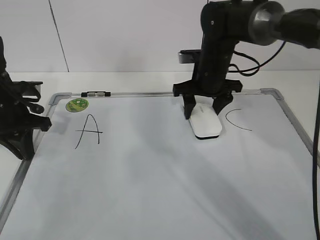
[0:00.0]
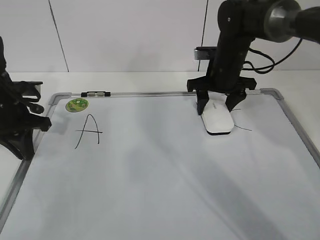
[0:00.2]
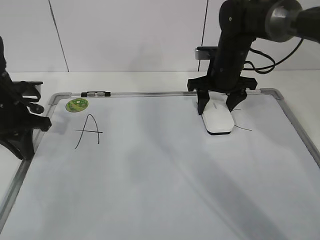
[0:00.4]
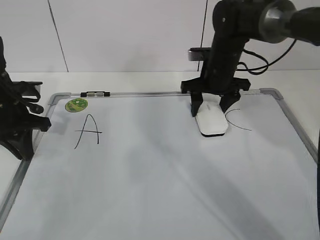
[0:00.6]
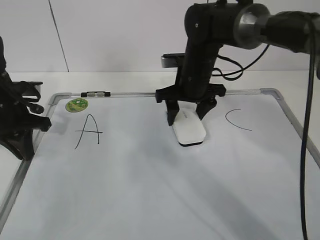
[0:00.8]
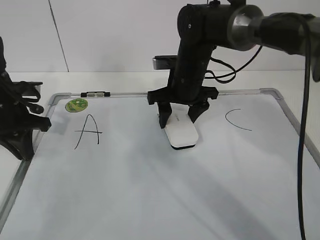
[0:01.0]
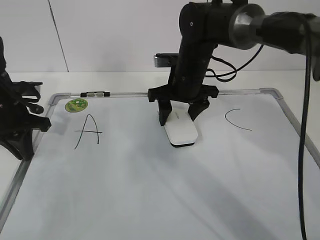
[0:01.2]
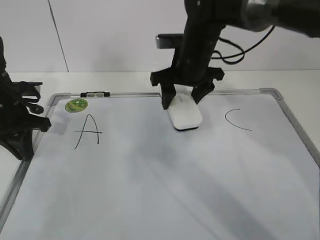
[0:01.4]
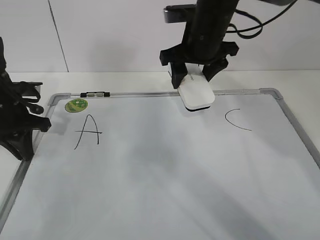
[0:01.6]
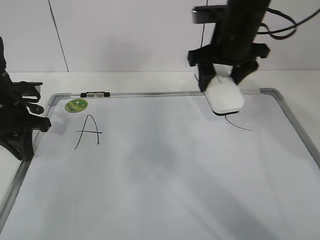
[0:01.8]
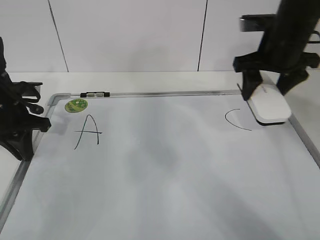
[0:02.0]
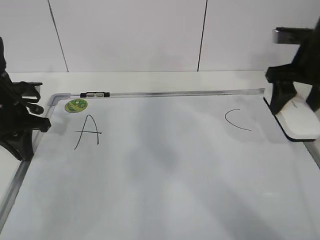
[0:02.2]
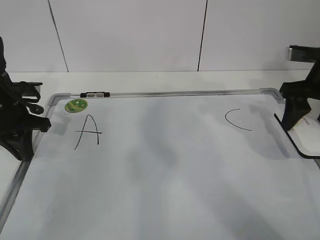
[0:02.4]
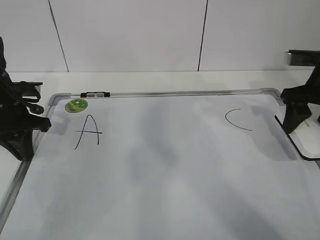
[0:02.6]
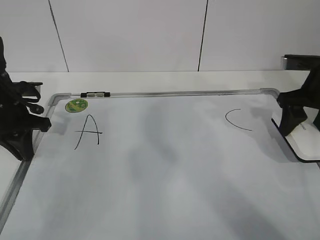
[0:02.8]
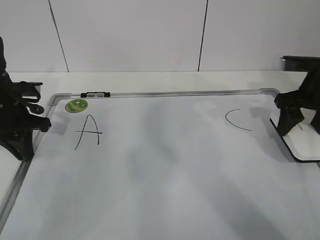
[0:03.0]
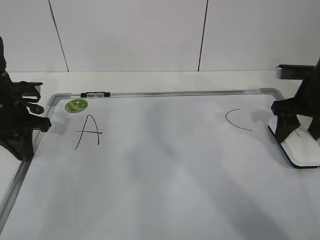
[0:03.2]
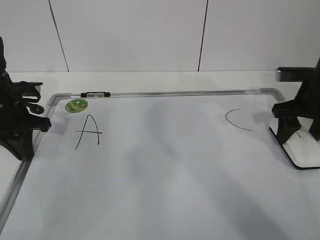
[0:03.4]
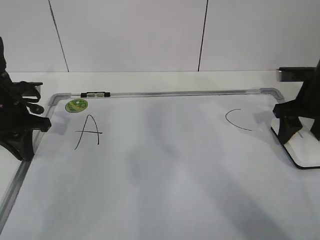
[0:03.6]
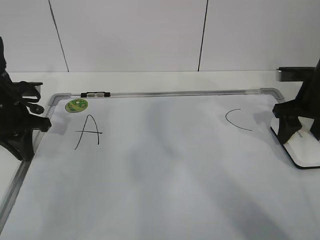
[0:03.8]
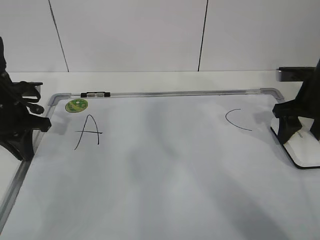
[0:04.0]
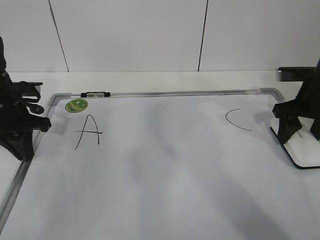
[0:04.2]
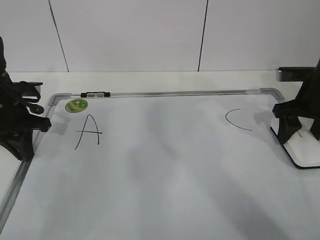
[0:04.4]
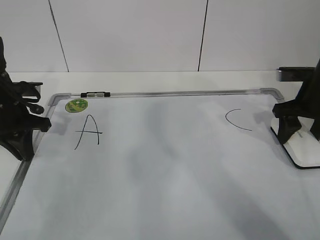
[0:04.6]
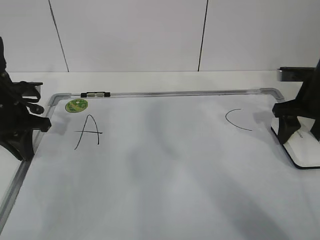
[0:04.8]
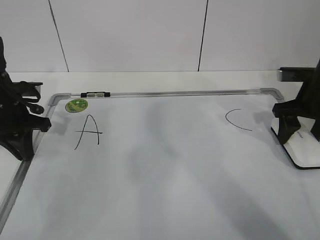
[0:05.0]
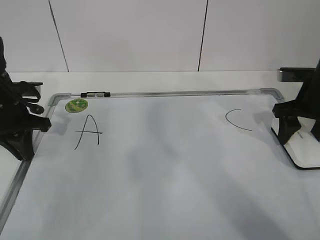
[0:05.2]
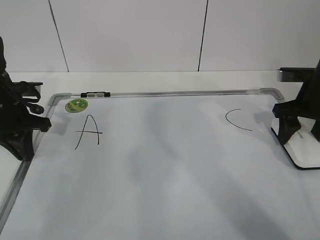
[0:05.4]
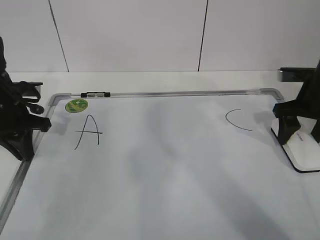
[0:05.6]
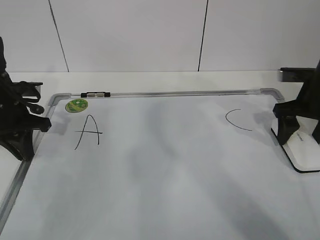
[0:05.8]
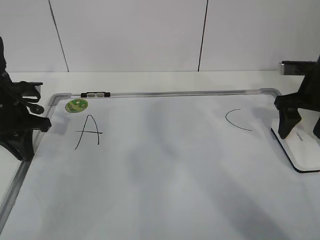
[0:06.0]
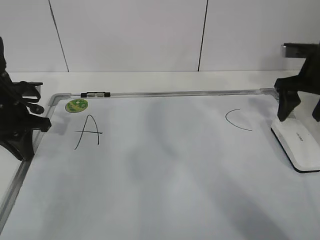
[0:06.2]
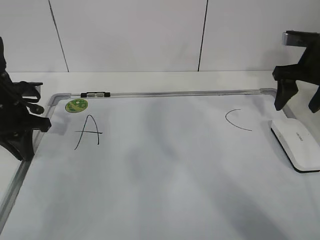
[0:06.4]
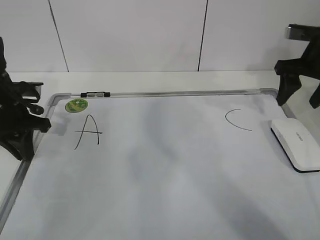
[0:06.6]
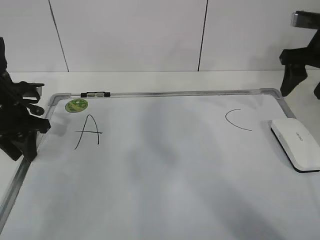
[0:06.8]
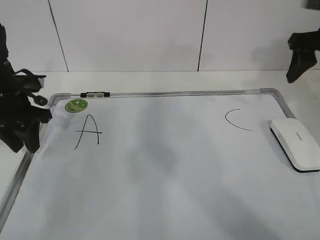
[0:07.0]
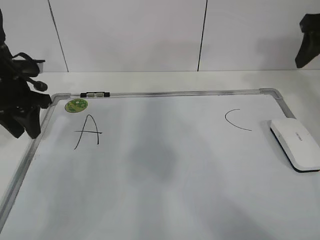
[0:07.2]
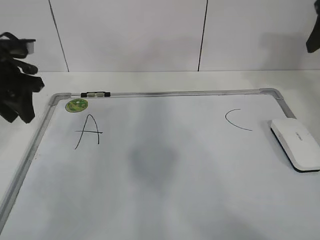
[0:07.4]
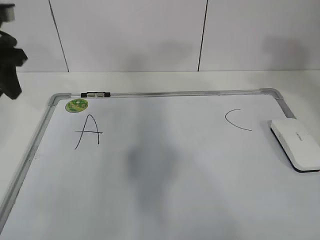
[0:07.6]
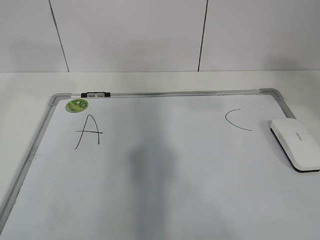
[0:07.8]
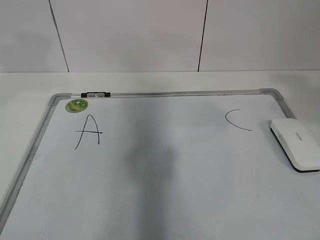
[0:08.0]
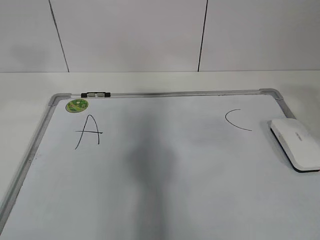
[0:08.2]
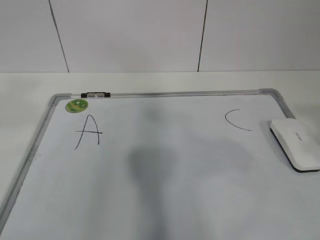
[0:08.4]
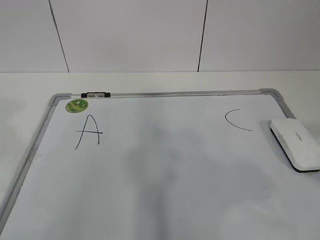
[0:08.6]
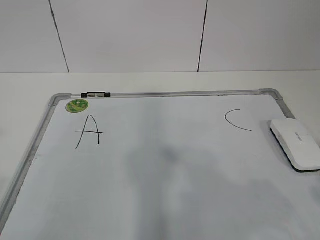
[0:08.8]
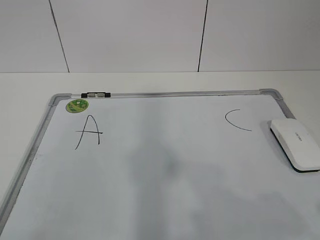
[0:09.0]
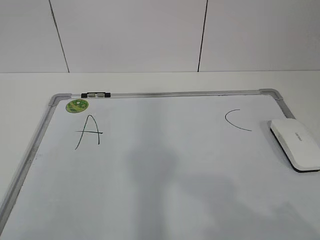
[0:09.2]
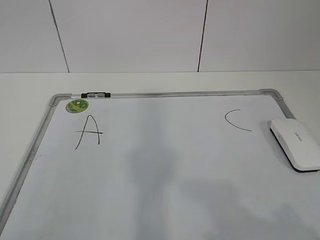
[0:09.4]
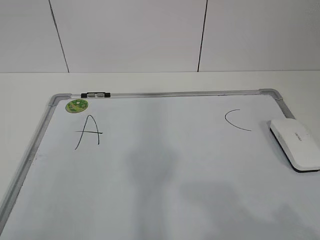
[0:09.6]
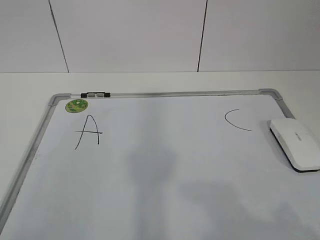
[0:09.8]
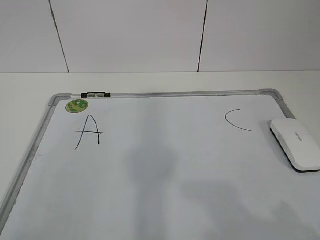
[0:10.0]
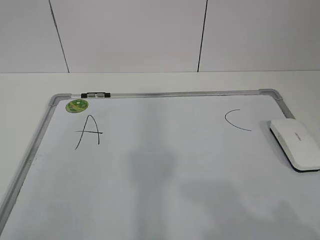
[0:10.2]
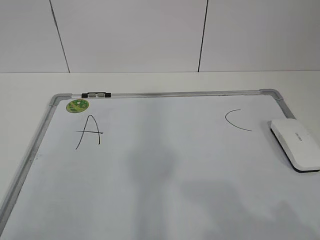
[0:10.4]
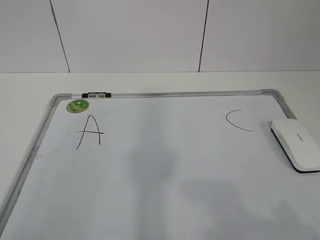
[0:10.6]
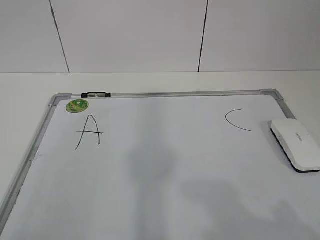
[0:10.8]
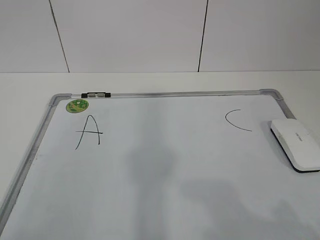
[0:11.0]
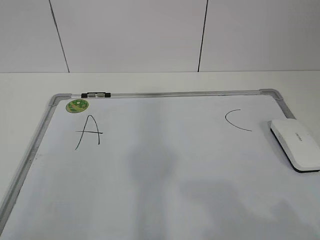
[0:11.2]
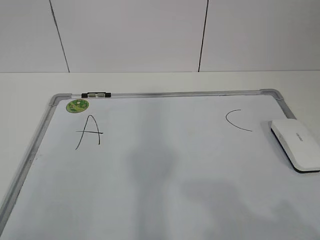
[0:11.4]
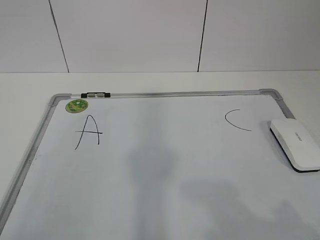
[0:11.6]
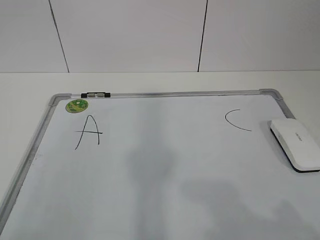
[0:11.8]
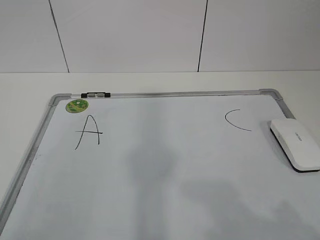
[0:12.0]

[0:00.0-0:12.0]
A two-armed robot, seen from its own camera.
Task of the whole recording: pick up the eraser on the blackboard and erase the letter "B".
0:00.0 to 0:01.6: The right gripper goes some 10 cm upward.
0:01.6 to 0:03.0: The right gripper moves to the right, approximately 20 cm.
0:03.0 to 0:04.4: The grippers make only small movements.
0:04.4 to 0:06.0: The right gripper opens up.
0:06.0 to 0:07.6: The left gripper travels upward by some 15 cm, and opens up, while the right gripper travels upward and backward by roughly 20 cm, and closes.
0:07.6 to 0:09.0: Both grippers move backward, roughly 30 cm.
0:10.4 to 0:12.0: Both grippers stay put.

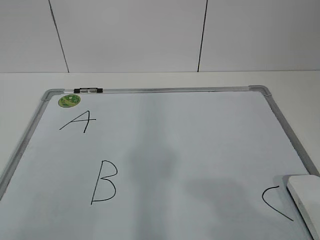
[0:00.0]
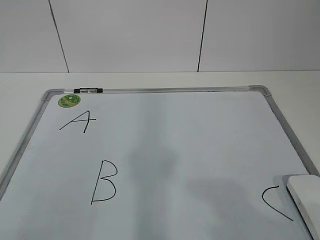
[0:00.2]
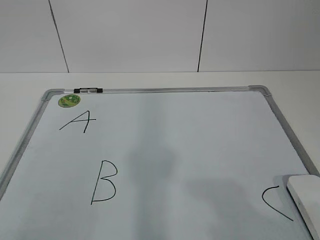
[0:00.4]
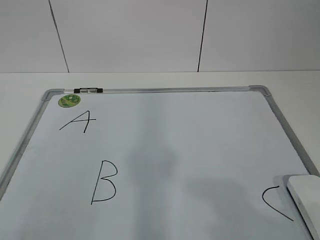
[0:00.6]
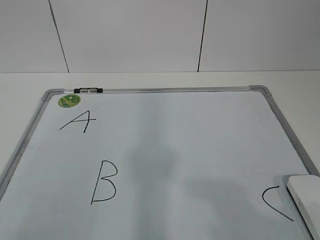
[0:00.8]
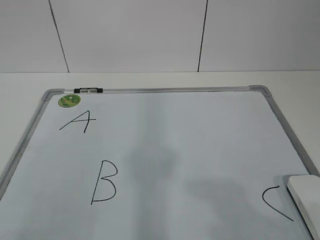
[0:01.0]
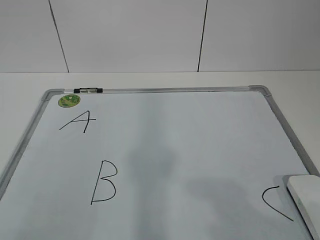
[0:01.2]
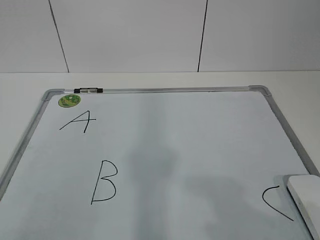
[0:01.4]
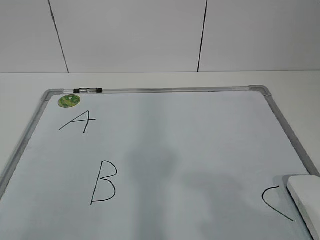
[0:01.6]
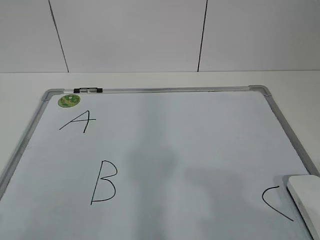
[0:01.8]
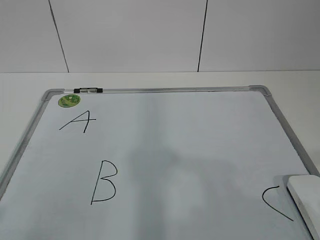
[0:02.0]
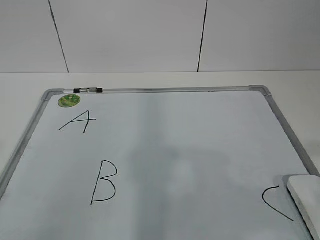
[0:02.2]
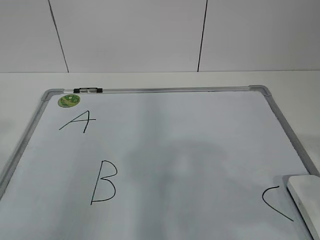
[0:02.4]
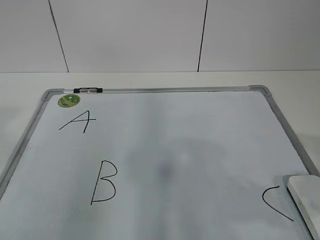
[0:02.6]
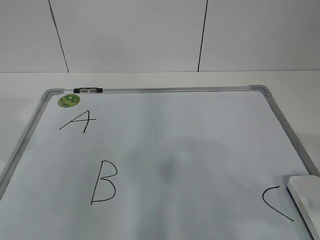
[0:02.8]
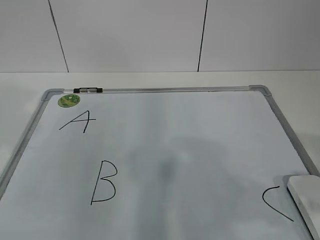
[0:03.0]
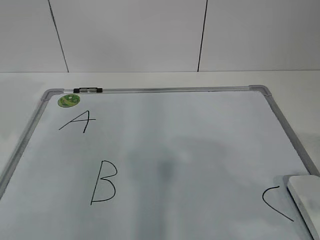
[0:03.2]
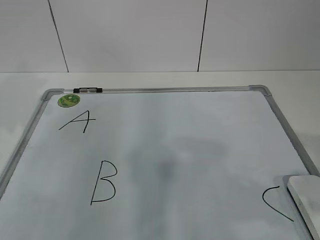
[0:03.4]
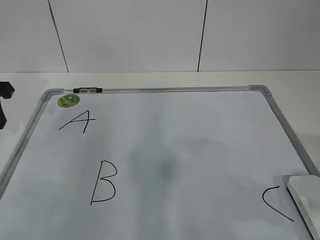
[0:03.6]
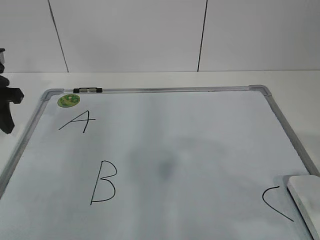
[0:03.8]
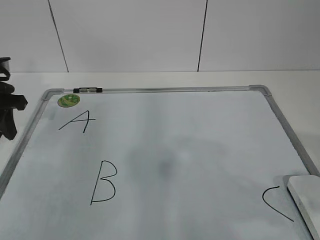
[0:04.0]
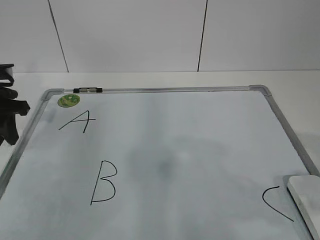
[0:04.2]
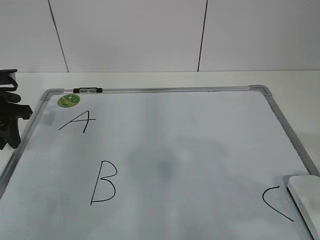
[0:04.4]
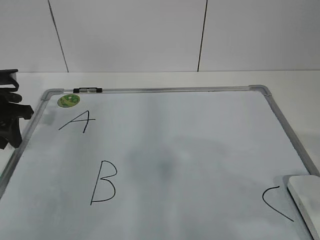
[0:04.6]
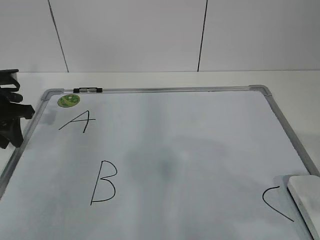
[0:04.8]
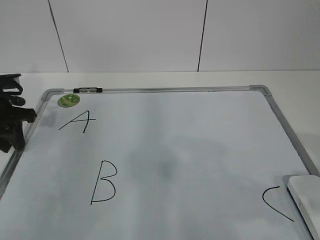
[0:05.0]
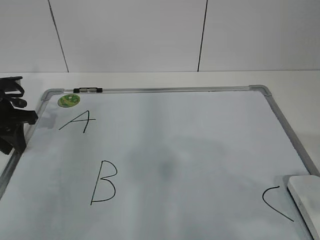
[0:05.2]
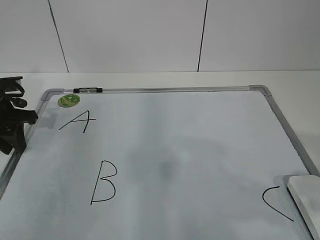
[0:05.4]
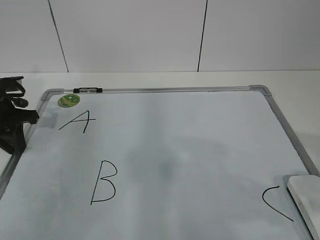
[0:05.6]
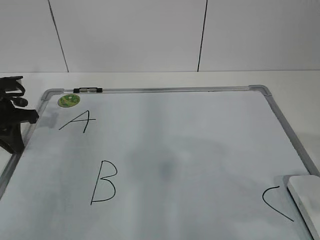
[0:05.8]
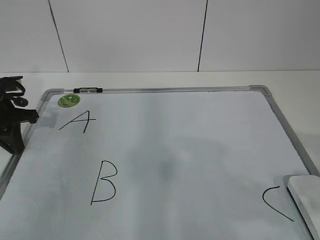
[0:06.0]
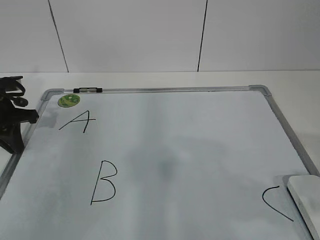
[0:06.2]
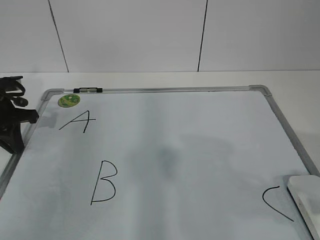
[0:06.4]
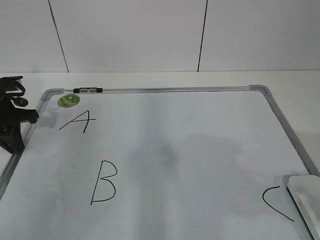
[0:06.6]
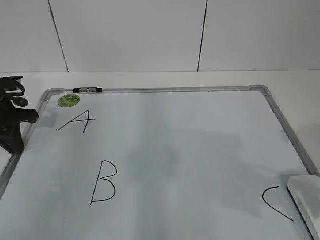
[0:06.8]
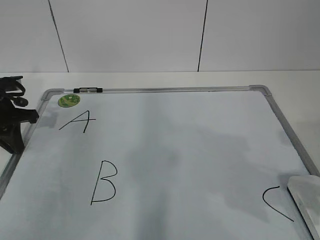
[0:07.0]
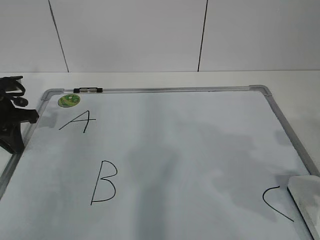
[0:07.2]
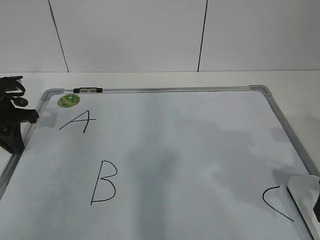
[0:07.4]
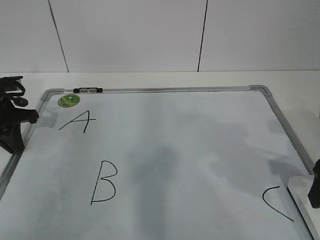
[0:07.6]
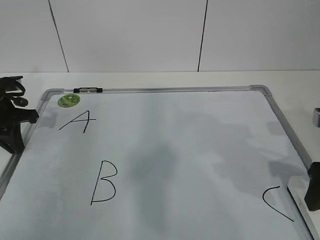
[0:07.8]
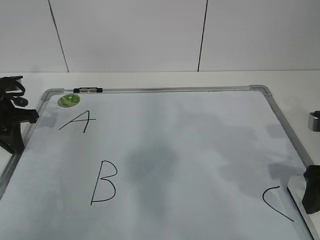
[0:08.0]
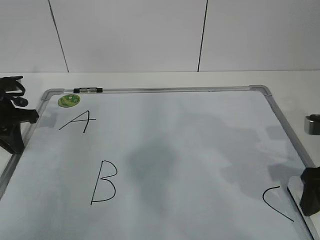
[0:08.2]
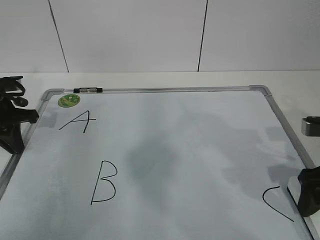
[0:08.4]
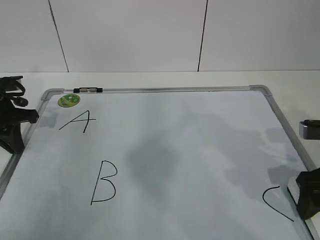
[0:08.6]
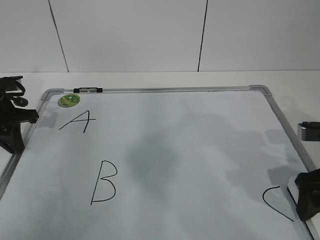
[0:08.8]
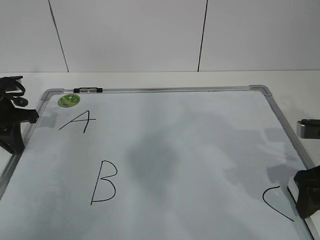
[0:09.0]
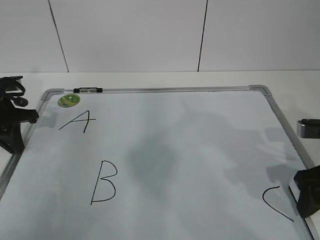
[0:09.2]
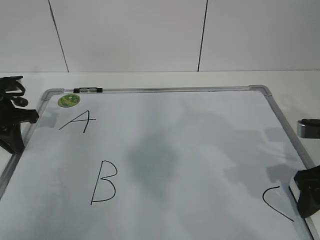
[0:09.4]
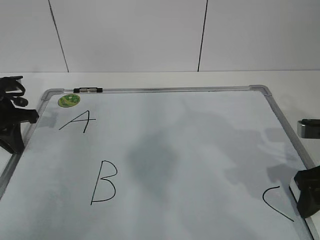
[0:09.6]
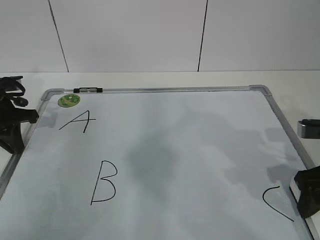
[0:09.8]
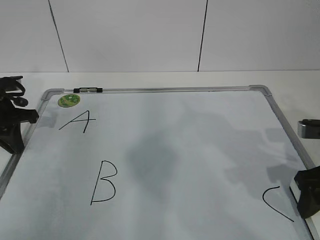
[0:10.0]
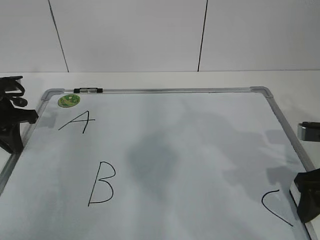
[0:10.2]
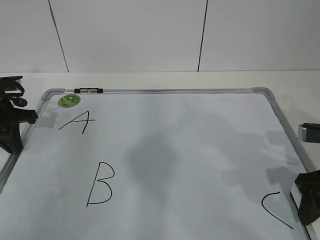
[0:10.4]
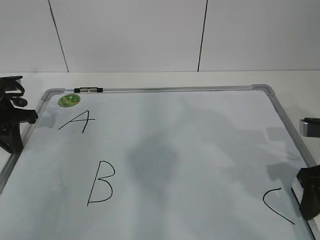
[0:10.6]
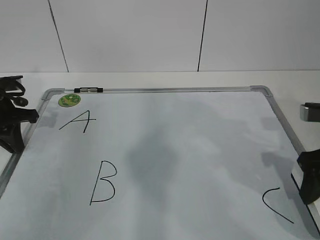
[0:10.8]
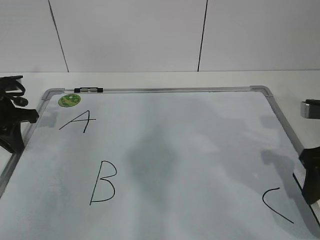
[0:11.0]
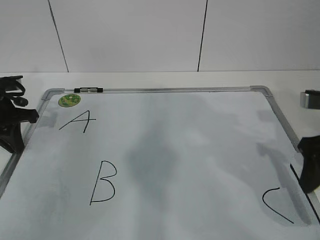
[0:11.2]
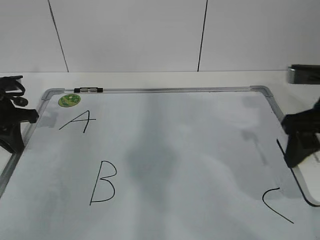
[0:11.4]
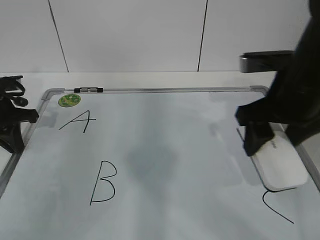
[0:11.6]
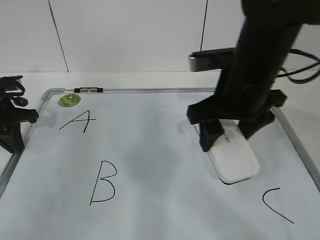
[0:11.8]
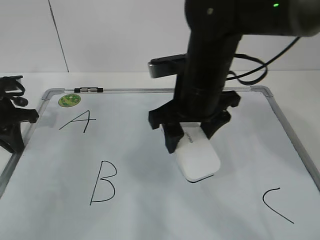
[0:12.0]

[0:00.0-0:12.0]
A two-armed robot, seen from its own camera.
Task of the whole recording: pick up the eraser on the blackboard and erase the letter "B".
Step, 0:00.0 to 0:04.8: Hold the drawing board steady with your left hand.
0:01.6 to 0:03.0: The left gripper is displaced forward by some 20 cm. Meanwhile the right gripper travels forward by some 5 cm.
0:03.0 to 0:04.4: The left gripper shifts roughly 20 cm forward and downward.
0:04.4 to 0:06.0: The left gripper closes.
0:06.0 to 0:07.6: The right gripper is displaced forward and downward by roughly 15 cm, and opens up.
0:07.6 to 0:09.0: The right gripper closes up.
0:09.0 to 0:10.4: The right gripper closes up.
0:10.4 to 0:12.0: The right gripper moves to the left and forward, roughly 20 cm.
